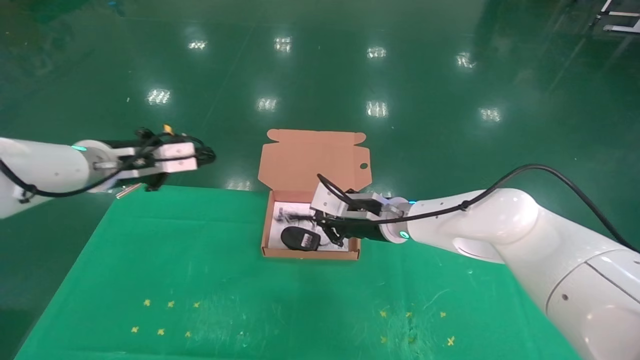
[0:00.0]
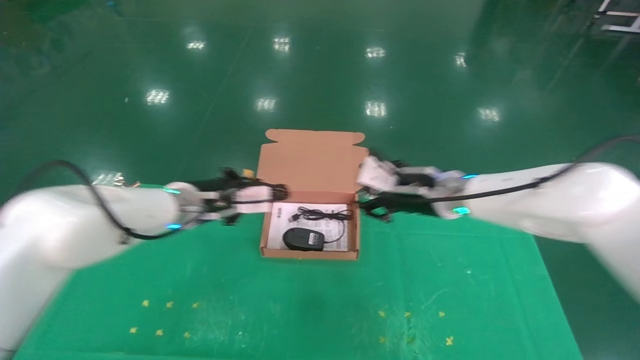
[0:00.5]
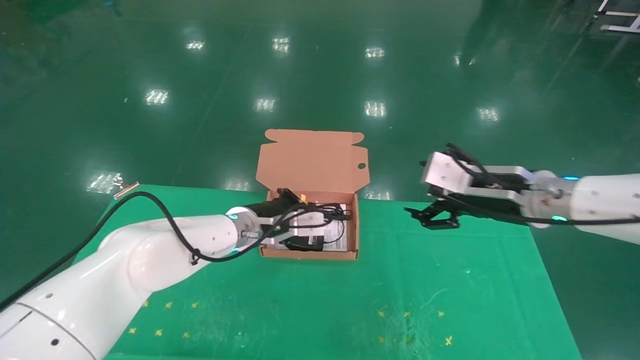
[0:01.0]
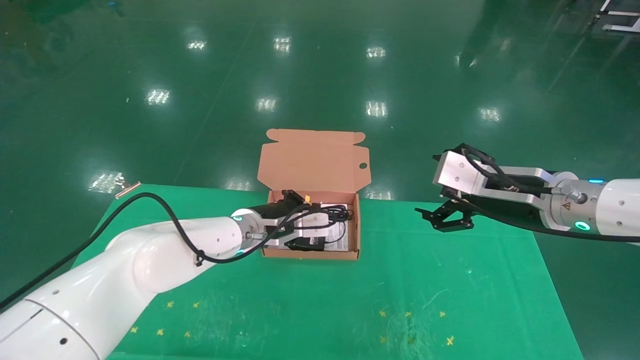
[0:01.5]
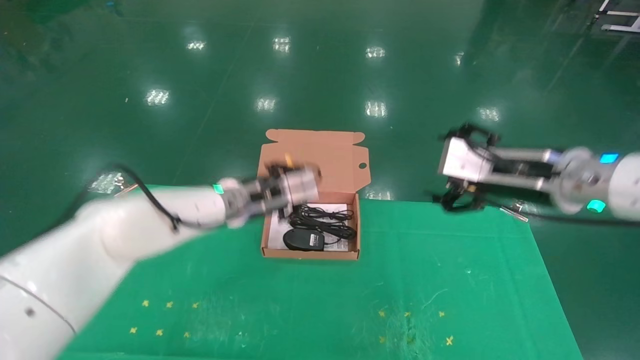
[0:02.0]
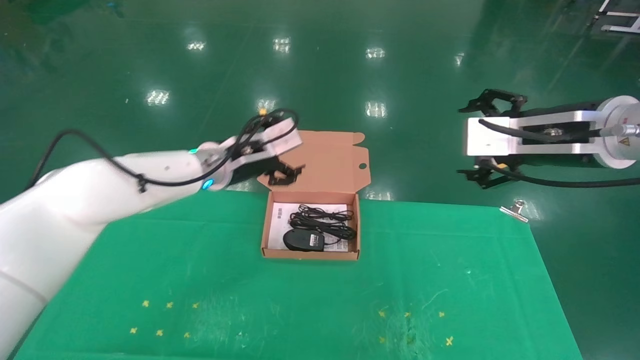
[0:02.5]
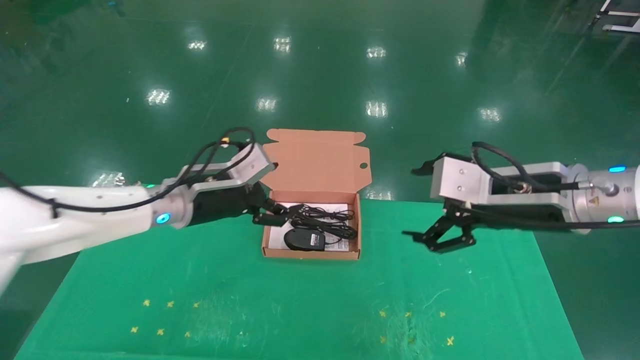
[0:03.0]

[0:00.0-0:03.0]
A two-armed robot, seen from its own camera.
Task of the whole recording: grasp data cable left put into box grasp mouse right put into box.
Step, 0:00.0 to 0:02.0: Place the mouse and power cord into the box.
0:00.0 to 0:01.5: The right gripper goes approximately 20 cm to the right, backward and upward, and opens its fingers; the left gripper travels to the right and downward by about 25 cm.
0:01.5 to 0:03.0: The left gripper moves to the left, upward and backward, roughly 10 cm, and opens up.
